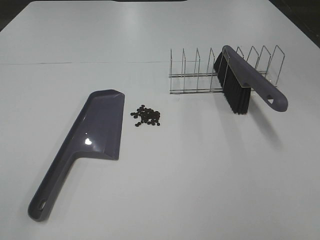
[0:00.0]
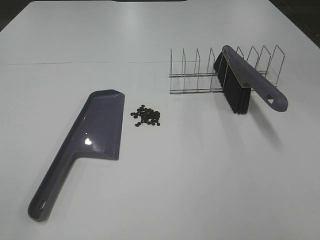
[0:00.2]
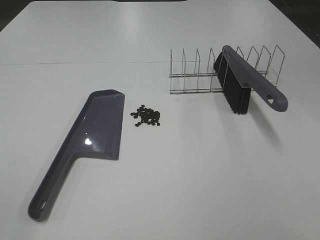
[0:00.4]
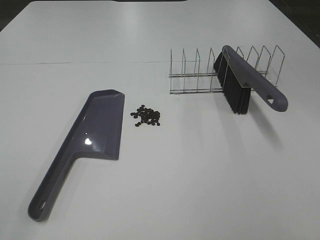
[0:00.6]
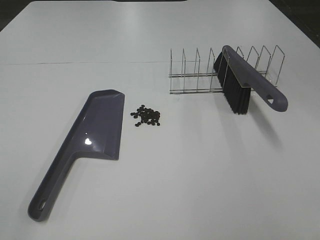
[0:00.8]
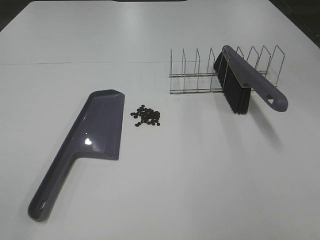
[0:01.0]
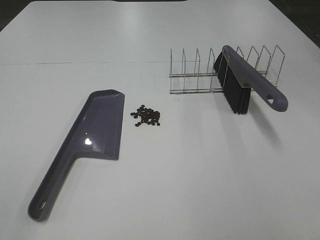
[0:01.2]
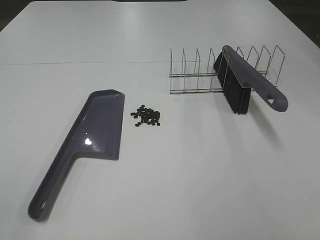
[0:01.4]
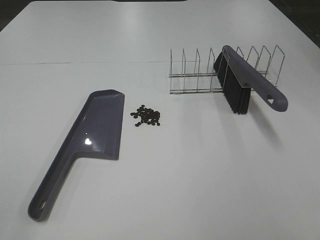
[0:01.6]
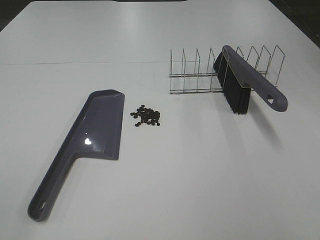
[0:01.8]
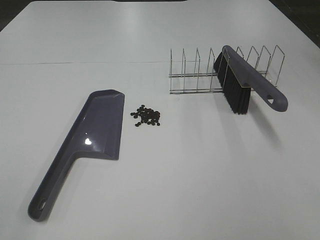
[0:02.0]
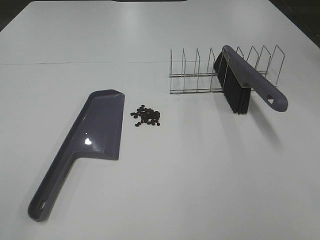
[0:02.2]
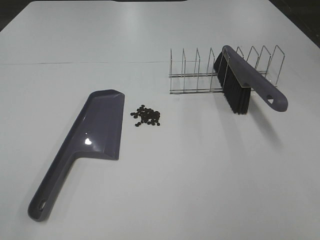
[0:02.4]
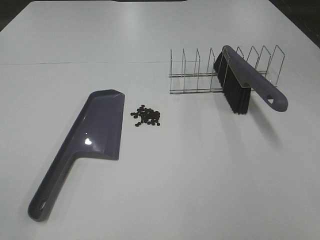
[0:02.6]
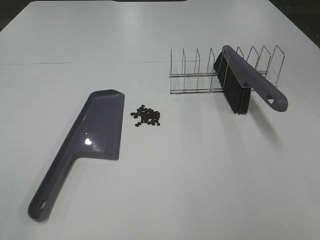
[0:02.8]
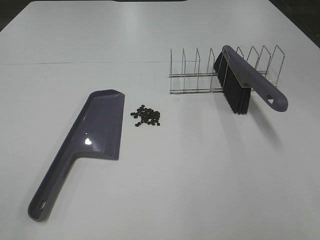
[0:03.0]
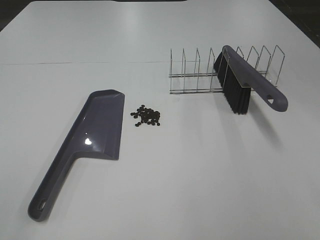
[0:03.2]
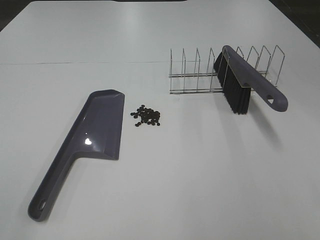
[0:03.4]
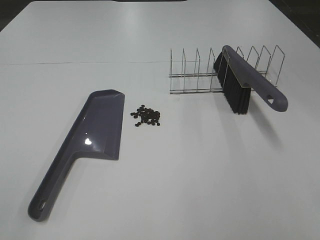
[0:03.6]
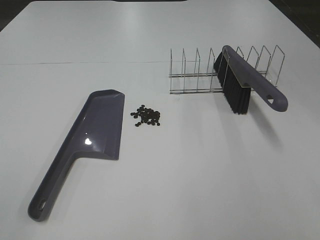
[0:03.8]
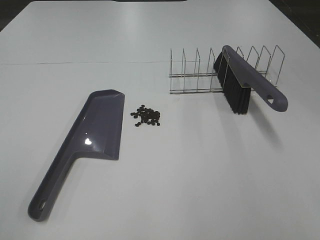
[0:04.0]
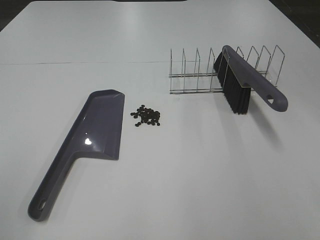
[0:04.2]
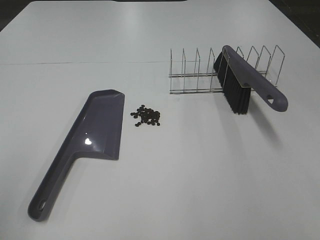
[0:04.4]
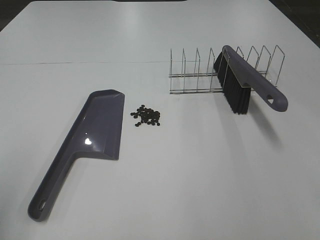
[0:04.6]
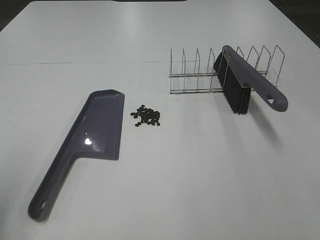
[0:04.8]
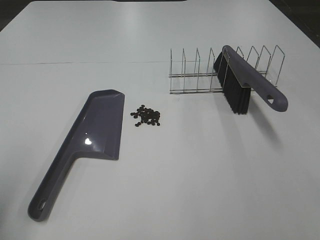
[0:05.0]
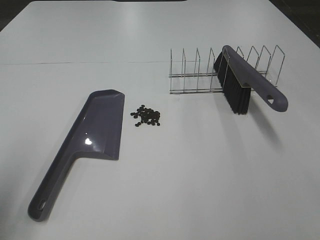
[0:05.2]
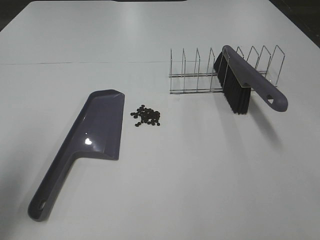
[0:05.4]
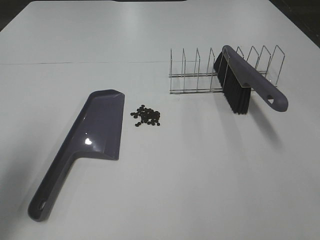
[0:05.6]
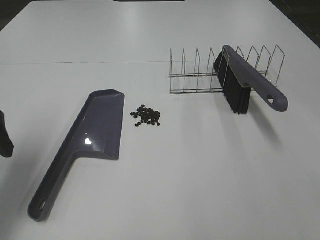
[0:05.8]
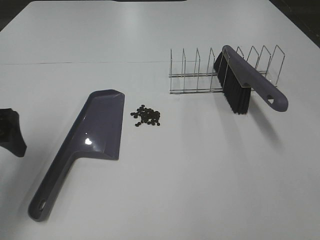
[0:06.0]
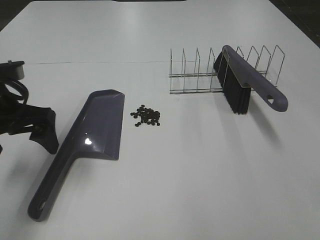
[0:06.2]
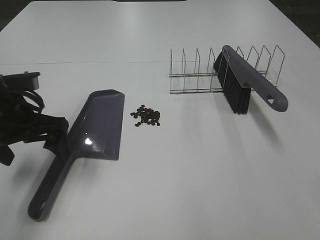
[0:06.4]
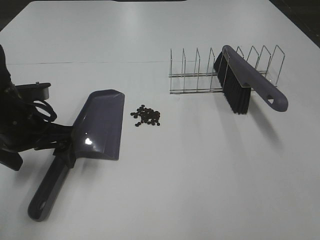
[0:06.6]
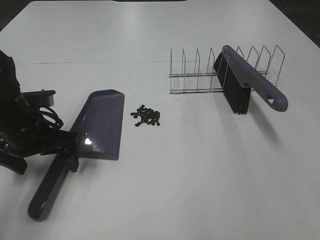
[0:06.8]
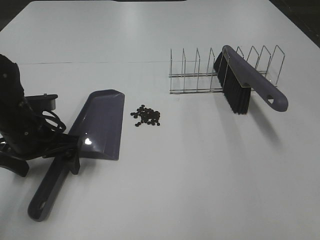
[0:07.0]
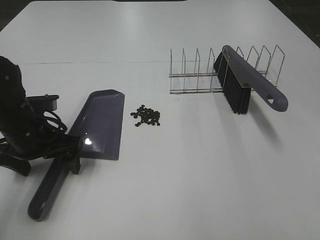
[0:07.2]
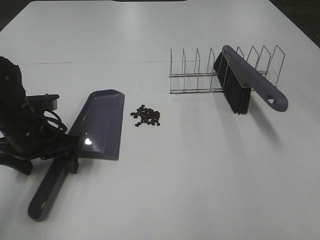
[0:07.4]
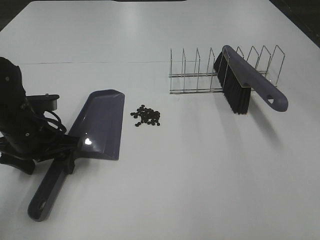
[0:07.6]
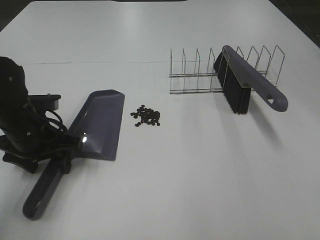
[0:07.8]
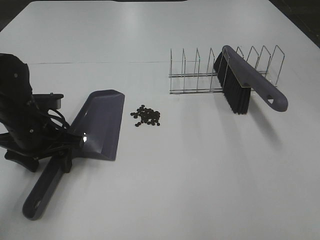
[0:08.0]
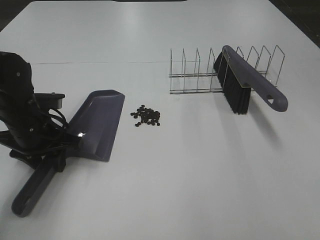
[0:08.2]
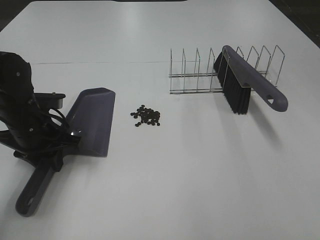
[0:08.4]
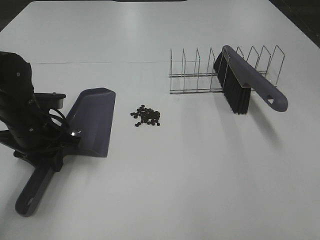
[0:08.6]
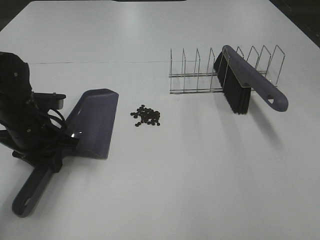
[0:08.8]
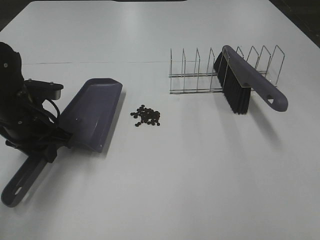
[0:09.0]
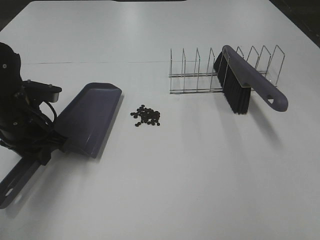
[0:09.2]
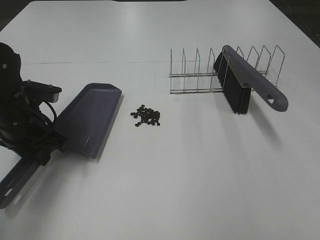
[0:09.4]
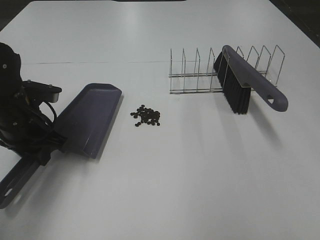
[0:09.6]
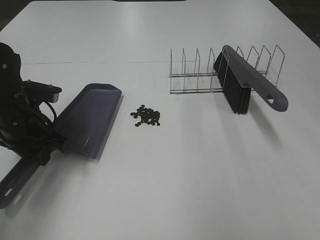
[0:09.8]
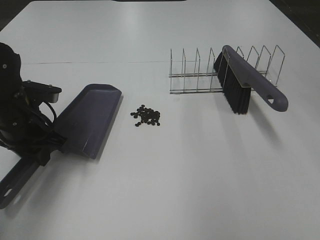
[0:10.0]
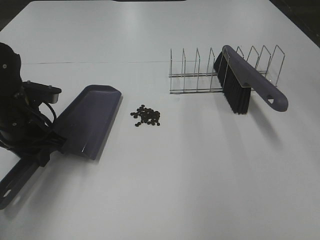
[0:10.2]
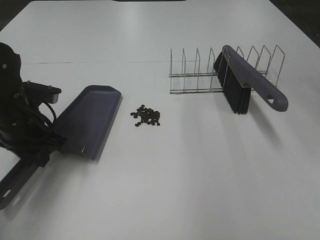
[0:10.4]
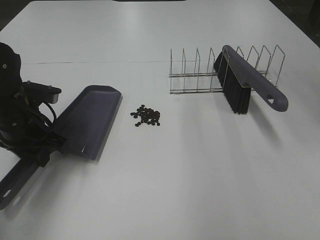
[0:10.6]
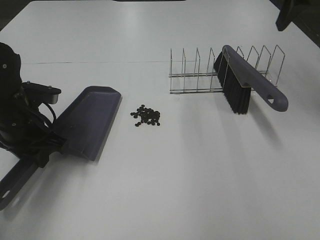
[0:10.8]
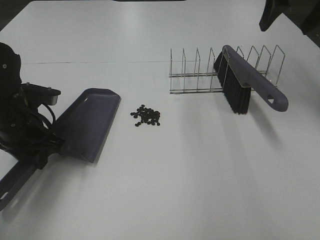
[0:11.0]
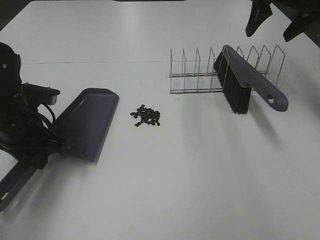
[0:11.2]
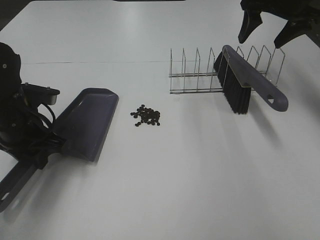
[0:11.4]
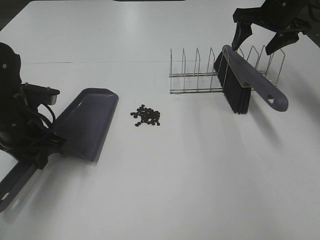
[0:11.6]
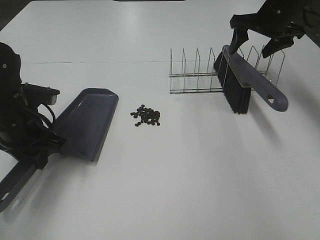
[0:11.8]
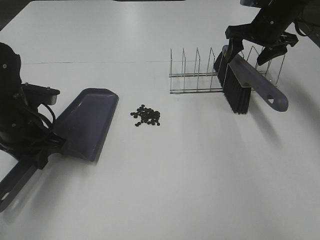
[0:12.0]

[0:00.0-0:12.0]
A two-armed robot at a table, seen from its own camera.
Task of the whole recording: Sweep Coffee Bean.
Step, 0:00.0 to 0:08.4: Left hand: grab the dustpan.
0:00.0 to 0:01.6: Both grippers stay put.
0:04.4 to 0:06.0: The left gripper goes about 20 cm forward.
0:06.0 to 0:07.6: The left gripper shifts approximately 10 cm downward and to the right, and closes up.
0:07.6 to 0:09.0: The left gripper closes.
0:10.4 to 0:12.0: The right gripper heads forward and downward, covering about 25 cm.

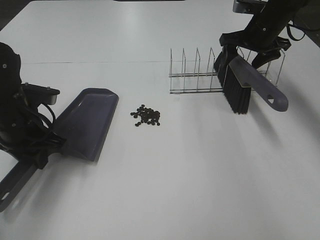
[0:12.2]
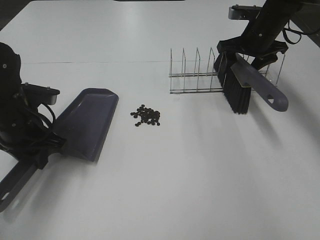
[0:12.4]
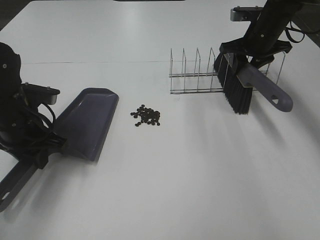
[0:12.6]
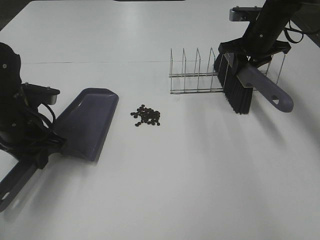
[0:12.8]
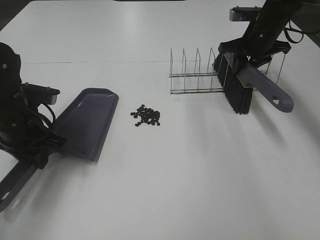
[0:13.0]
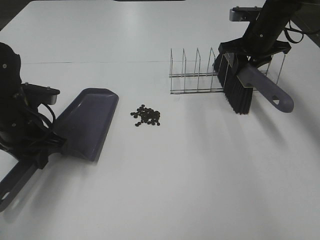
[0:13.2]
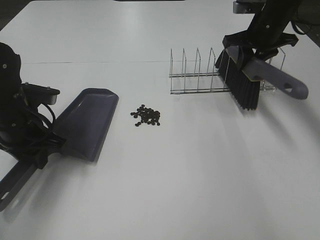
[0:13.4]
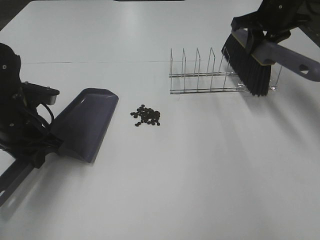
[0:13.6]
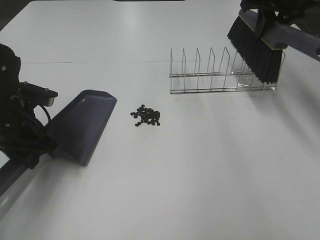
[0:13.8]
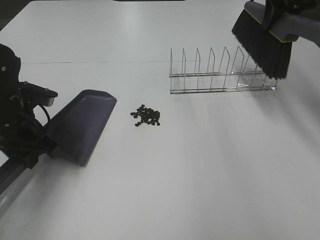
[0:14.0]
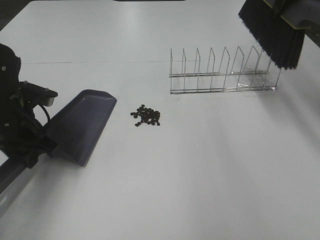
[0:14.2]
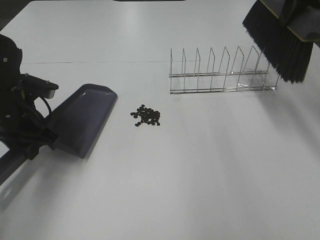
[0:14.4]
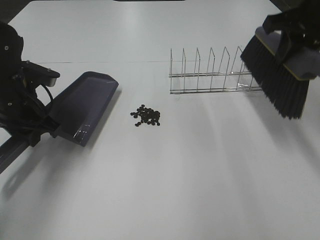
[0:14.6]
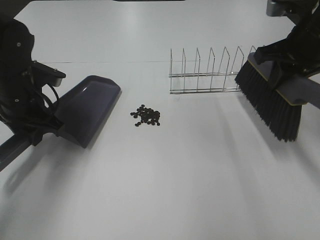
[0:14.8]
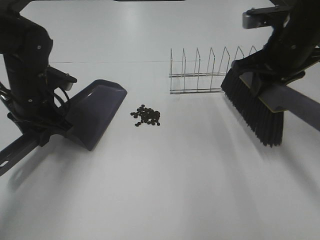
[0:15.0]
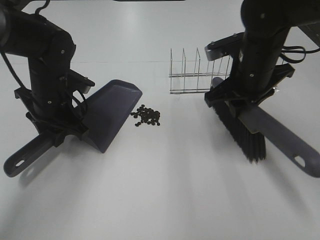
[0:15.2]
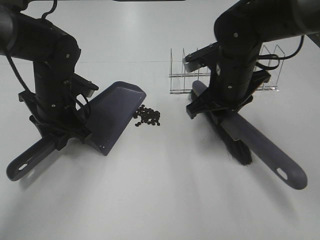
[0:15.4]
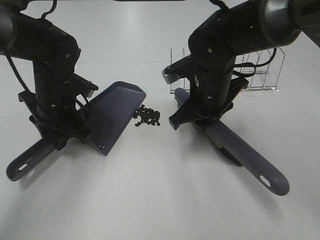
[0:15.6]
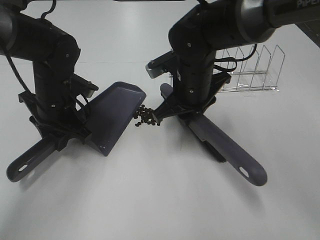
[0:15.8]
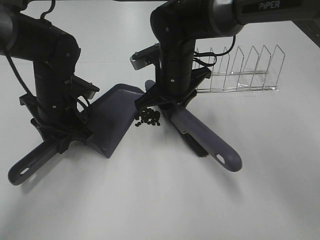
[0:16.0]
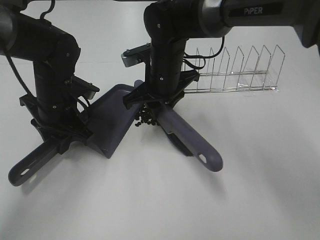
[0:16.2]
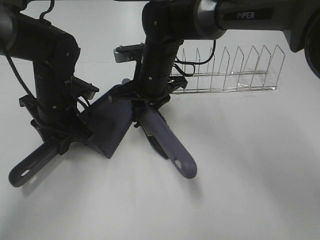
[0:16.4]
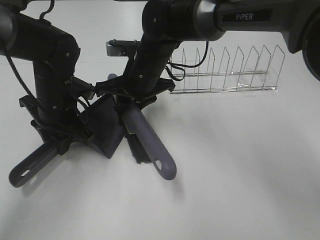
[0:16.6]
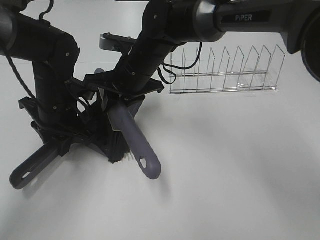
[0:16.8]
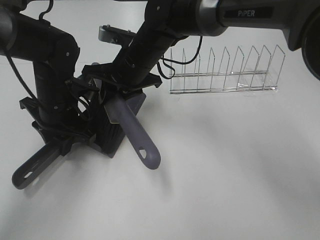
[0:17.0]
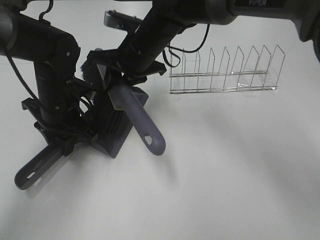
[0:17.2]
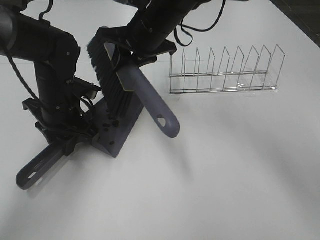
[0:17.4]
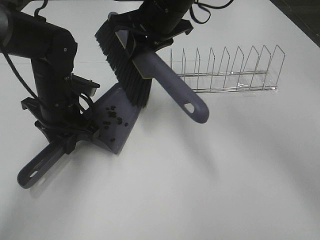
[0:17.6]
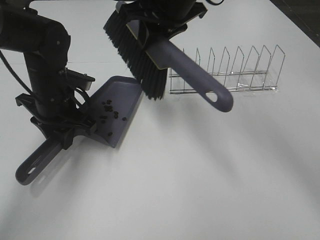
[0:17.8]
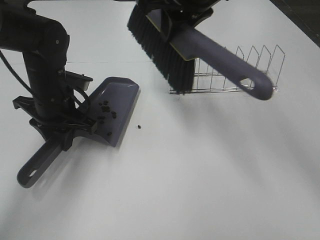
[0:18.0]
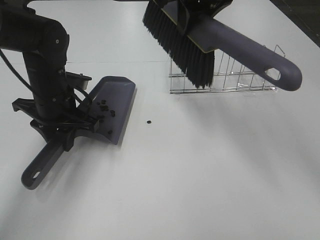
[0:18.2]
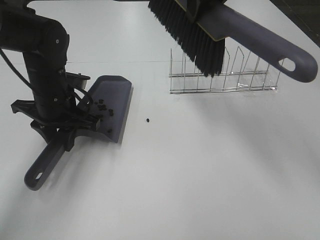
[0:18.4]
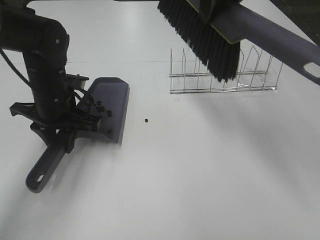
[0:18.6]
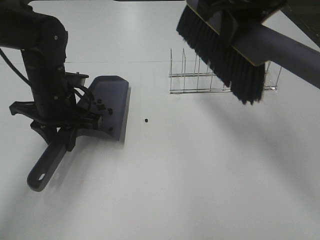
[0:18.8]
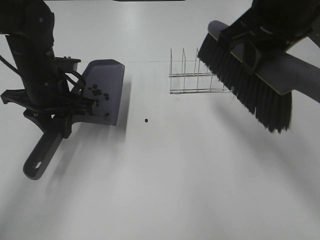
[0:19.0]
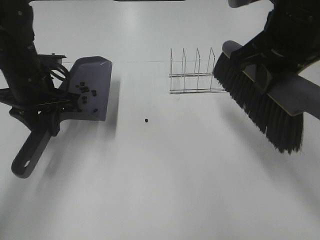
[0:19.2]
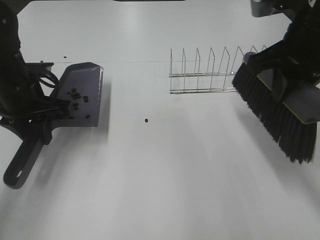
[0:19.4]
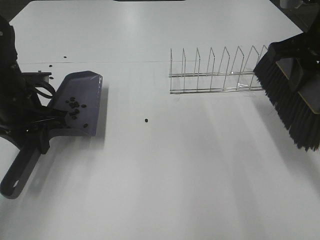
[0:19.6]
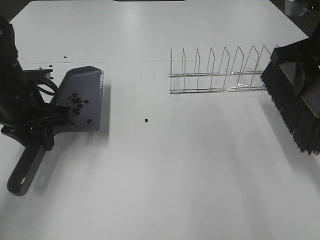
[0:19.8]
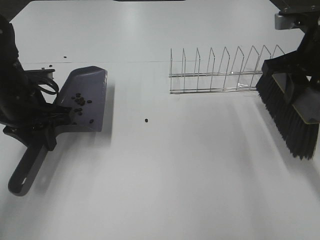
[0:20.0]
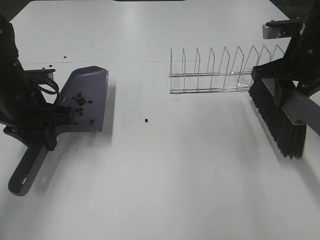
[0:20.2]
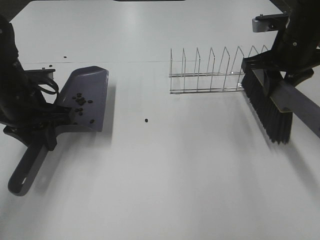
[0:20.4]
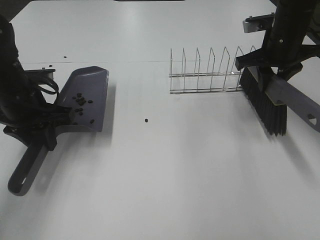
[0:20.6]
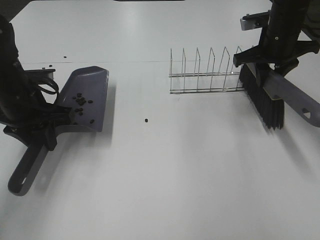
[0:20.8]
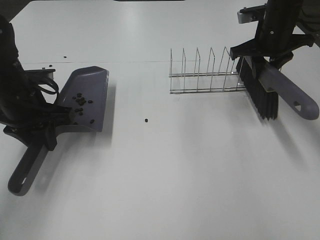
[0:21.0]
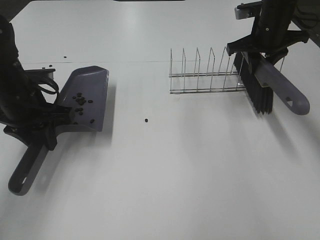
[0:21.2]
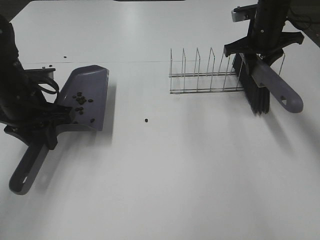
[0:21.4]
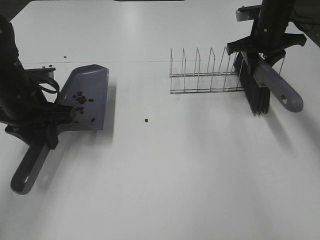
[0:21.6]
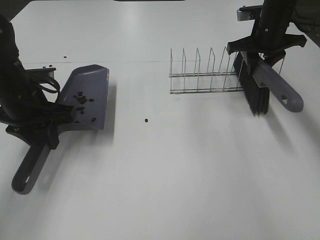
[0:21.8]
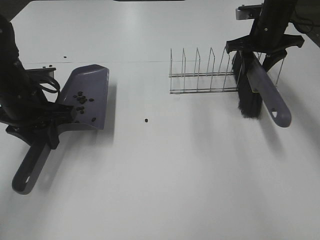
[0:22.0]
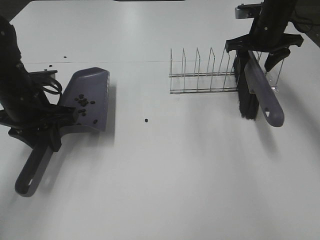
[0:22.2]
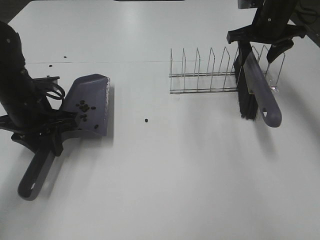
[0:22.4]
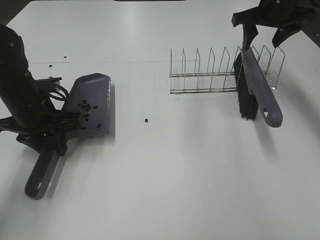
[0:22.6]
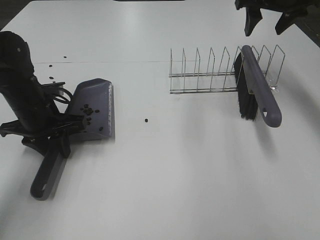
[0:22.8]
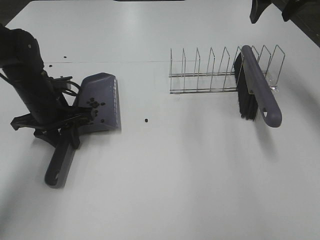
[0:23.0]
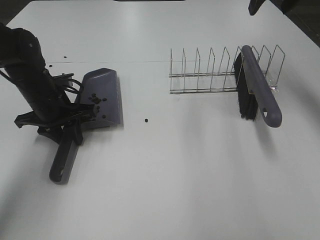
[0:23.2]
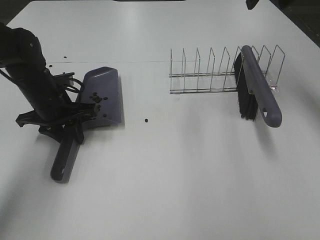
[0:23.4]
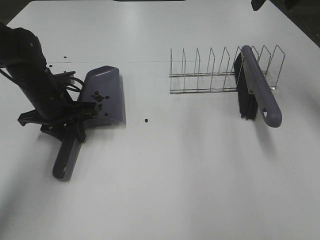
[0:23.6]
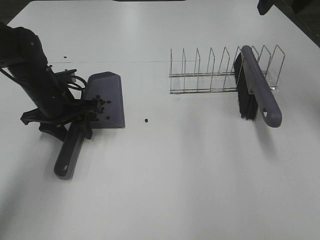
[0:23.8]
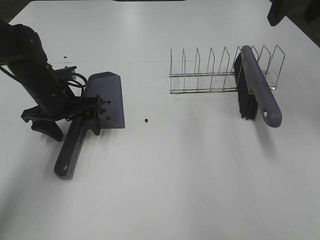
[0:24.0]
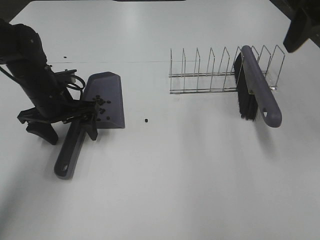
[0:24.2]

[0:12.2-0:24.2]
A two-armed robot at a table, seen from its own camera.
Task of the whole recording: Sweep Coffee Bean.
Step, 0:12.2 to 0:15.2: Left hand: move the dustpan to the left side of the coffee beans.
Step, 0:12.8 to 0:17.2: Right hand:sweep the coffee beans into the dustpan.
Step, 0:17.4 to 0:21.8: Right hand:place the broom on the rack.
Step, 0:22.0 to 0:23.8: Left hand:place the dustpan on the table.
0:12.2 to 0:13.8: The right gripper travels upward by some 10 cm, and closes its fingers.
0:13.8 to 0:15.2: The left gripper goes approximately 10 cm forward and to the right, while the right gripper travels downward, backward and to the left by roughly 20 cm.
0:15.2 to 0:16.6: The right gripper shifts approximately 15 cm to the left.
0:16.6 to 0:18.2: The right gripper goes roughly 20 cm upward and to the right.
0:18.2 to 0:19.8: The left gripper heads to the left, covering some 5 cm, while the right gripper is displaced to the right and downward by roughly 20 cm.
0:19.8 to 0:21.2: The right gripper heads forward and downward, covering about 20 cm.
0:21.2 to 0:22.6: The right gripper travels upward by about 5 cm, and opens up.
0:22.6 to 0:24.2: The right gripper travels backward and upward by some 20 cm, while the left gripper opens up.
